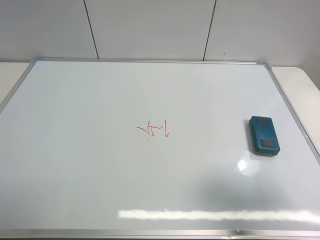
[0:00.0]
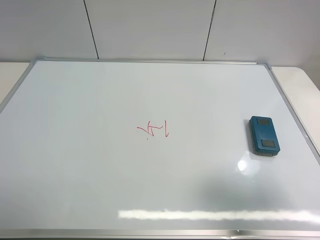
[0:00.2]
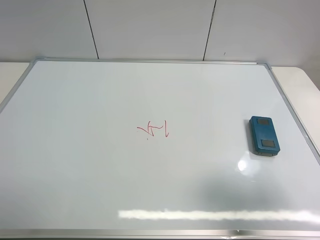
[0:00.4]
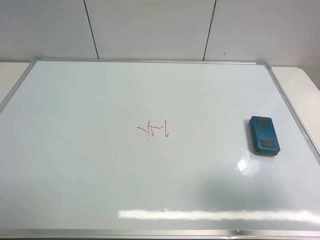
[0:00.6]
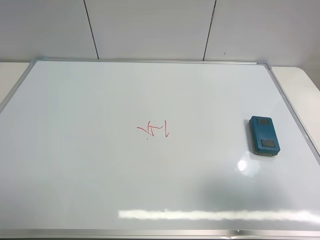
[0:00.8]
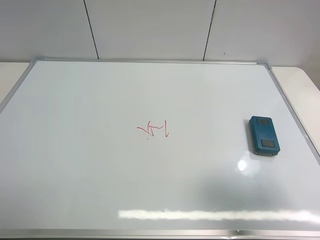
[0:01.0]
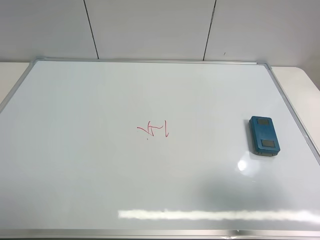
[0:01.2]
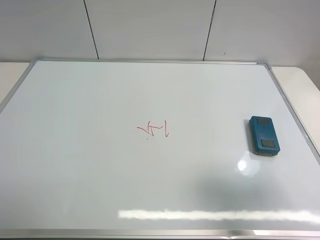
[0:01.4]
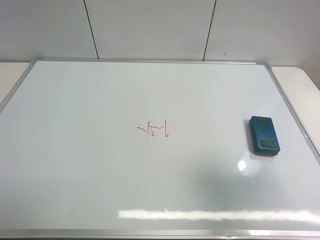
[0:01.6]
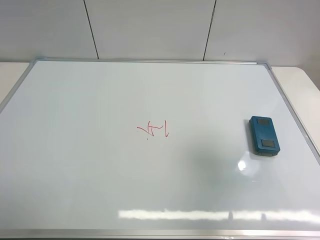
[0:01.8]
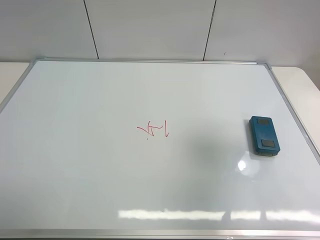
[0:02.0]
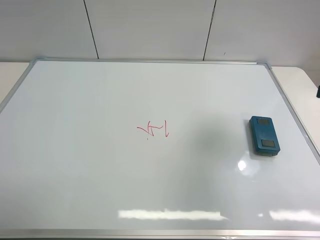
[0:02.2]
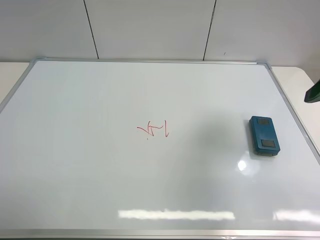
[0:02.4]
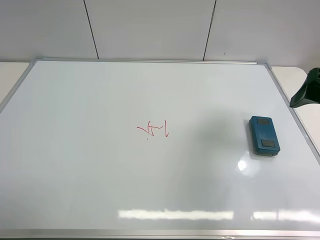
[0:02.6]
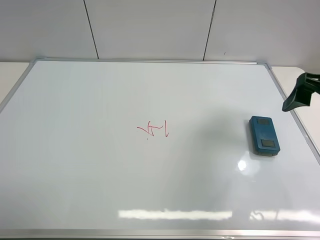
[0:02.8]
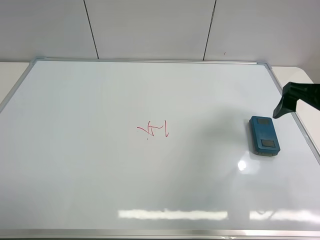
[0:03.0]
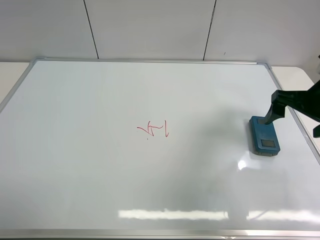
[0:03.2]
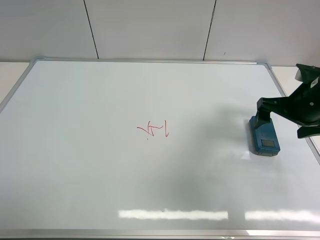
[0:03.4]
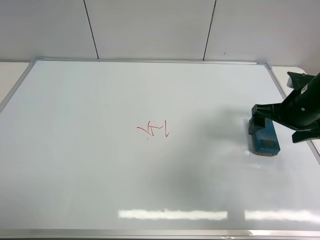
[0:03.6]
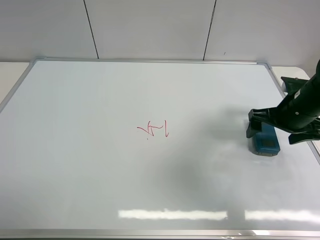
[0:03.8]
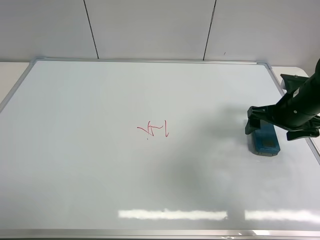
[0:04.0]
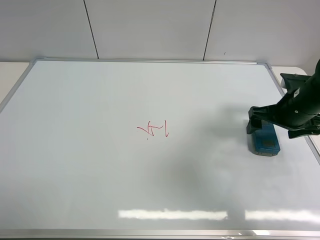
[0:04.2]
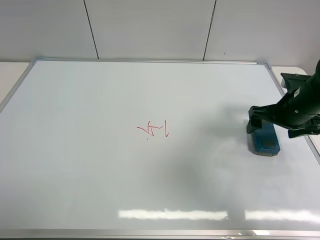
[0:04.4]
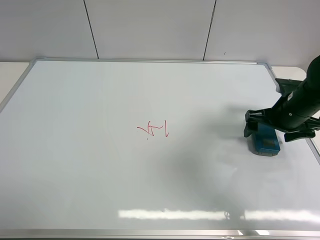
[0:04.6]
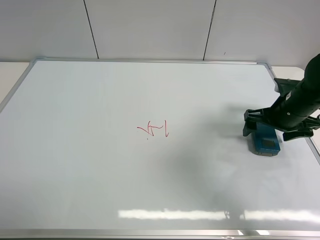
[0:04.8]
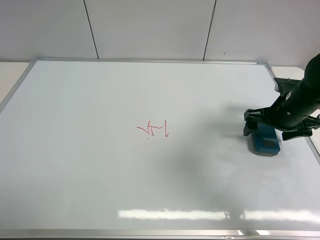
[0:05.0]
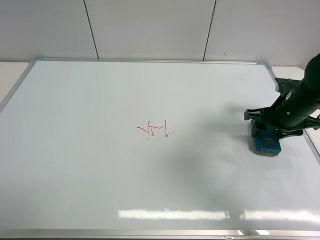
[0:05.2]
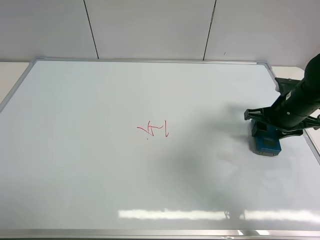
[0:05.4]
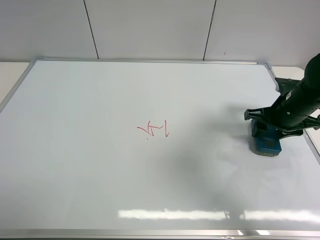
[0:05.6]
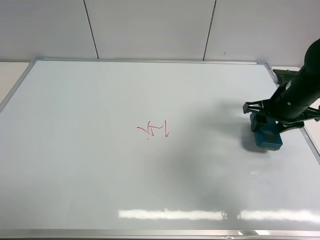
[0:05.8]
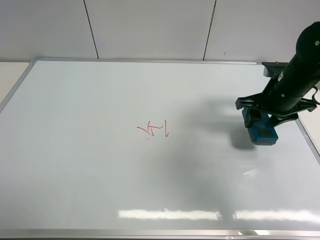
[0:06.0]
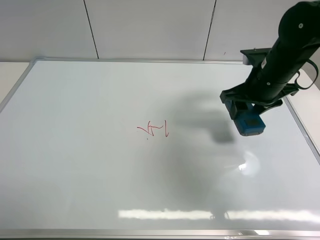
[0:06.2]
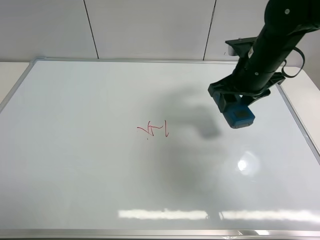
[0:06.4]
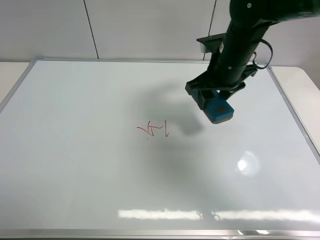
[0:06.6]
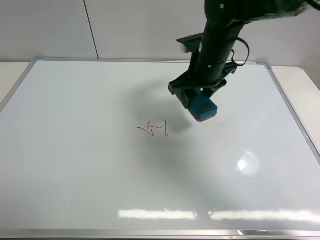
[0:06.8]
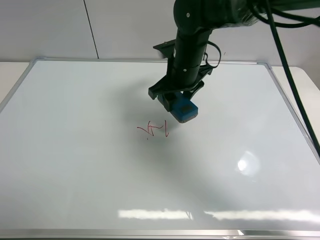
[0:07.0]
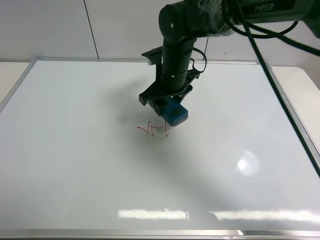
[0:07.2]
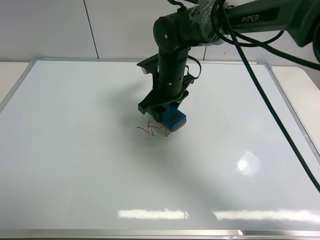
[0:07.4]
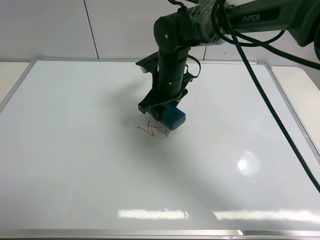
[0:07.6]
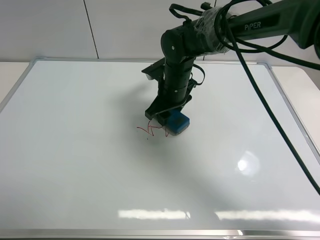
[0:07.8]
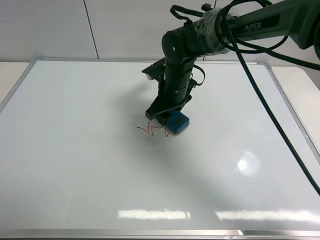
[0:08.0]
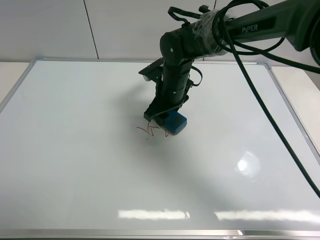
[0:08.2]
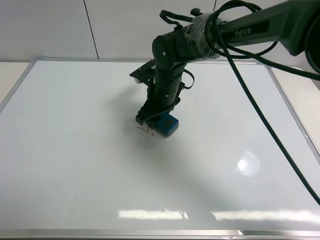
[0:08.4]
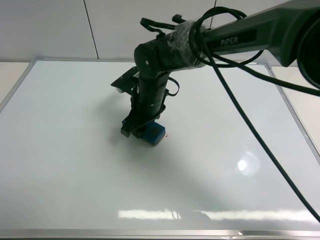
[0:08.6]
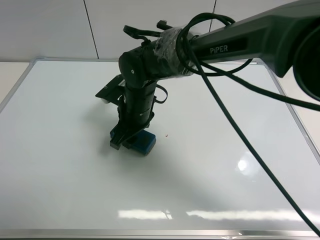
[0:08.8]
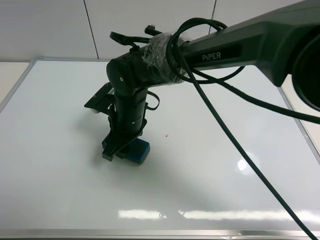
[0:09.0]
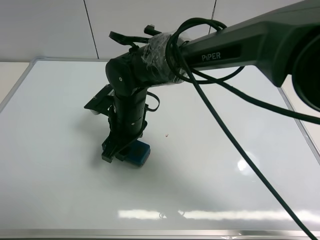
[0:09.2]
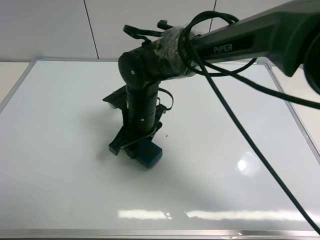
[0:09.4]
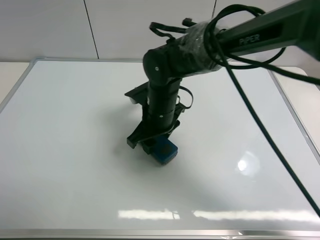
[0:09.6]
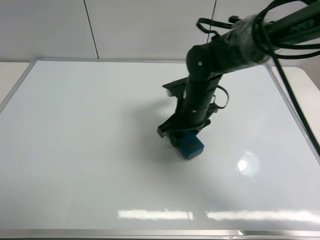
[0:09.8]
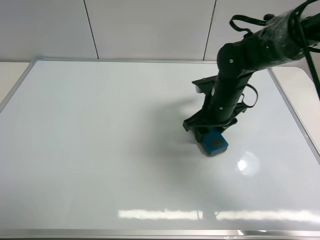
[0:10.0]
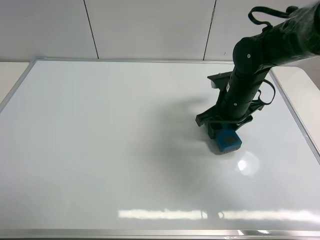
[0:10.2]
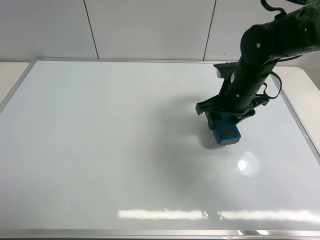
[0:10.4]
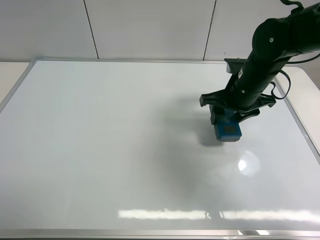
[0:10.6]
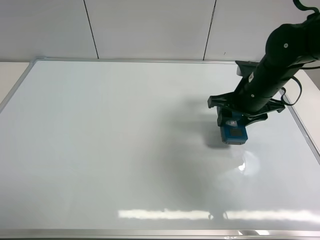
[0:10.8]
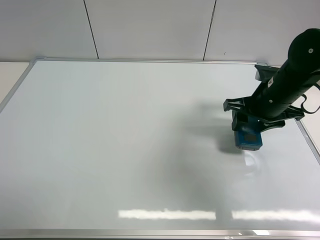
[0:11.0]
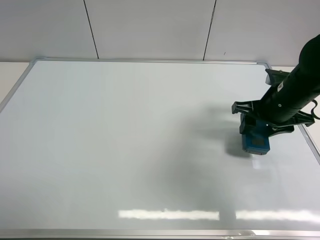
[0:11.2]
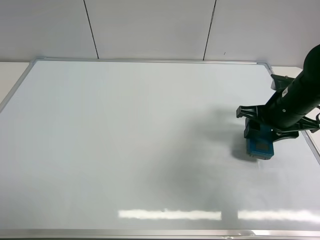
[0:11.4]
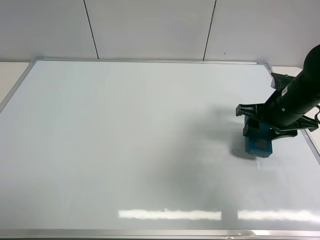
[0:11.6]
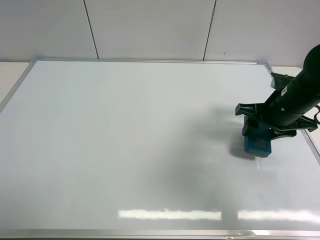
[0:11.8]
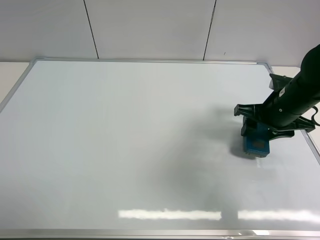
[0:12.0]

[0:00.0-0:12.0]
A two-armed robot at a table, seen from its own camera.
Task of the whole recording: use the right gripper to pick up the board eraser, wipe the notes on the whiteboard clean, and then put them back in place.
Step, 0:00.0 to 0:05.6: Pick up the board eraser with right gripper.
Step, 0:05.8 to 0:10.0: Wipe off the writing on the board with right gripper.
0:00.0 to 0:01.6: The right gripper changes place by about 5 cm.
0:01.6 to 0:03.0: The right gripper heads forward and downward, covering approximately 20 cm.
0:03.0 to 0:04.4: The right gripper goes about 10 cm downward.
0:04.4 to 0:06.0: The right gripper moves some 5 cm, and closes up.
0:06.0 to 0:07.6: The right gripper moves to the left, roughly 20 cm.
0:07.6 to 0:09.0: The right gripper heads backward and to the left, covering some 10 cm.
0:09.0 to 0:10.4: The right gripper is displaced to the right by roughly 20 cm.
0:10.4 to 0:12.0: The right gripper goes roughly 10 cm to the right.

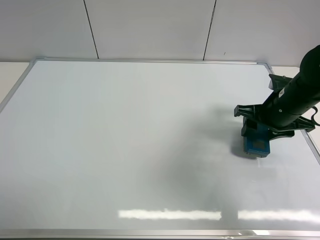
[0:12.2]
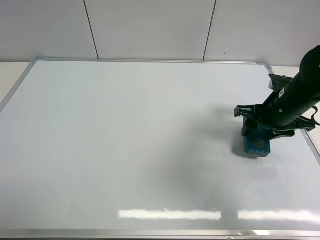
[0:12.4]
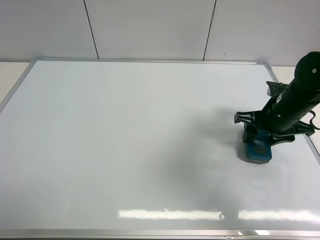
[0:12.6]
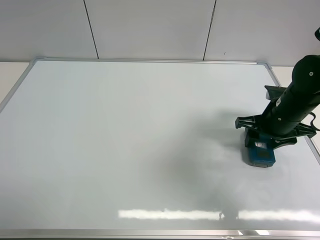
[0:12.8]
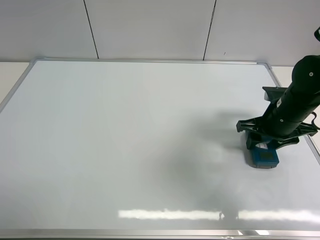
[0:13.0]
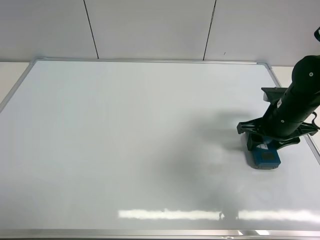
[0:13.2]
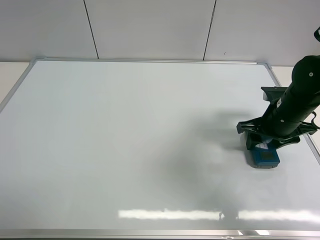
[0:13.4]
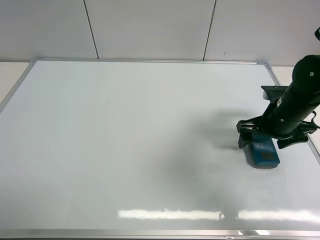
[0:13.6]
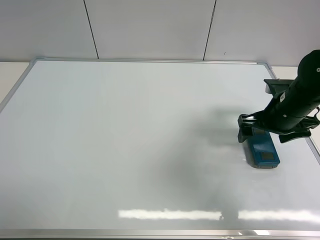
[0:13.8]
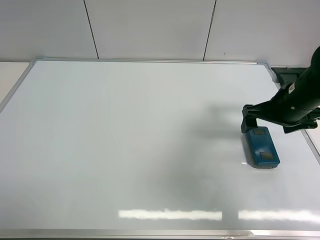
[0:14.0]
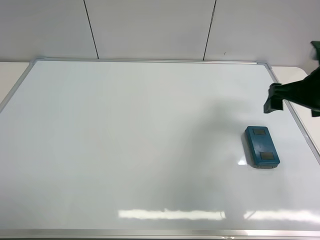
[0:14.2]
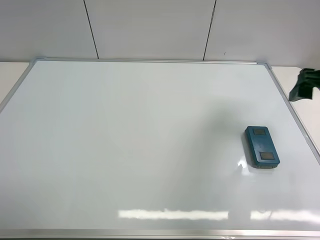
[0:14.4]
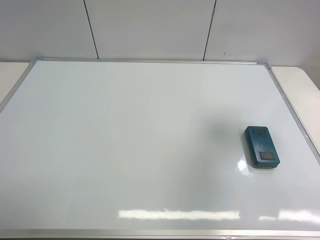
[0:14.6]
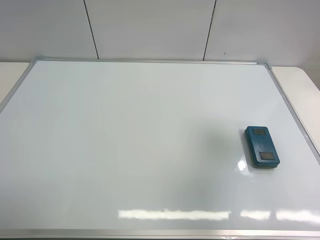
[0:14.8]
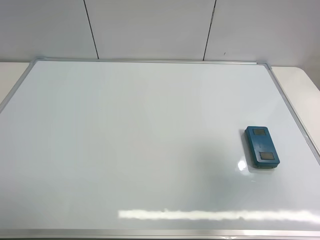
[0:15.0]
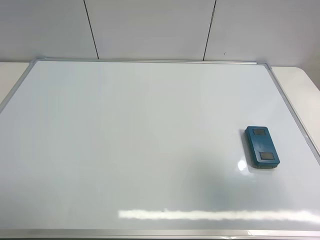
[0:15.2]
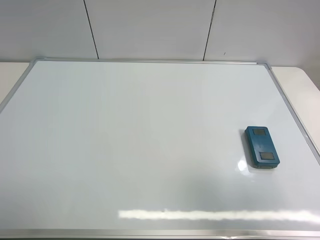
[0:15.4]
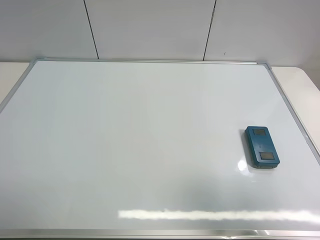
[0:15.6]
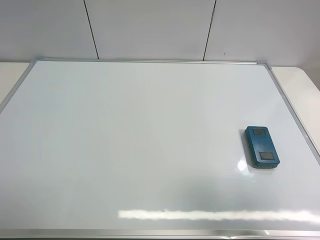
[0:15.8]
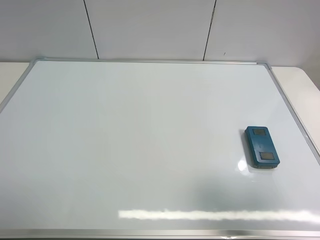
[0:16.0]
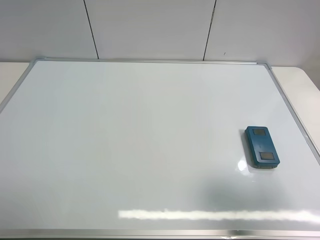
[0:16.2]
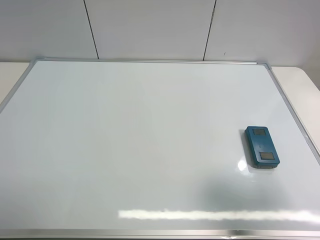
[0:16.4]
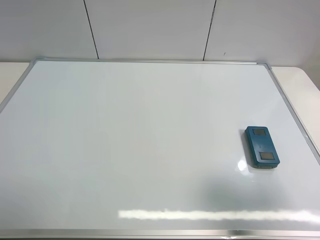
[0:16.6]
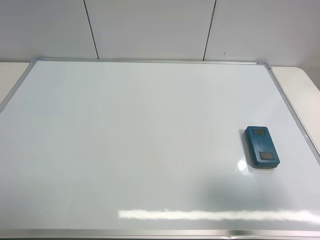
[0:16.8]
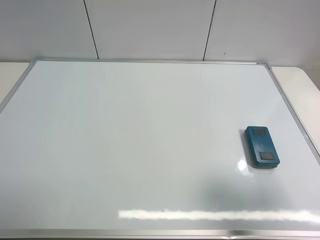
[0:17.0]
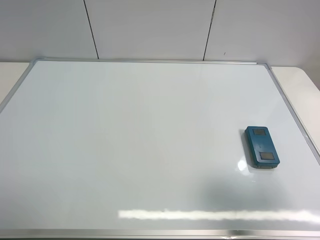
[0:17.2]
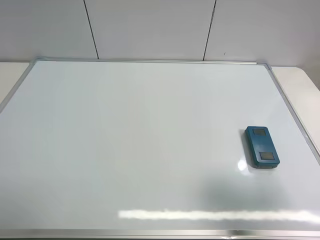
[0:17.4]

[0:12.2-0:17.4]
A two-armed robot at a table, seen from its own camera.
Task of the whole recording: use the right gripper to pick up the board eraser, wipe the notes on the whiteboard clean, and then put them back in place.
0:12.2 to 0:14.0: The right gripper opens its fingers.
0:14.0 to 0:15.6: The right gripper heads backward and upward, covering approximately 35 cm.
0:15.6 to 0:17.4: The right gripper moves downward, roughly 5 cm.
